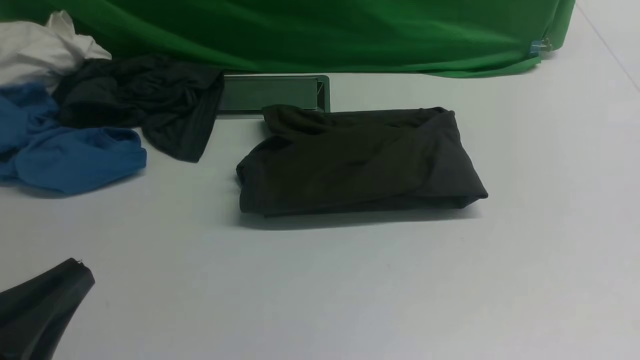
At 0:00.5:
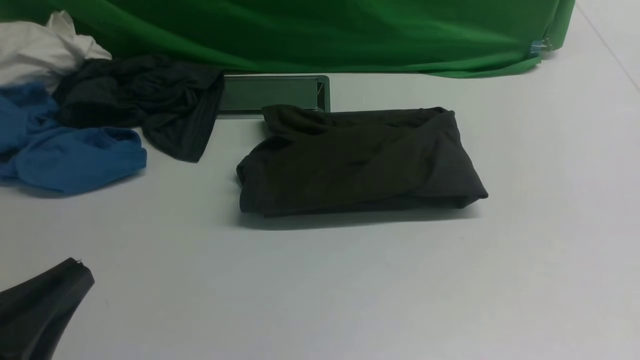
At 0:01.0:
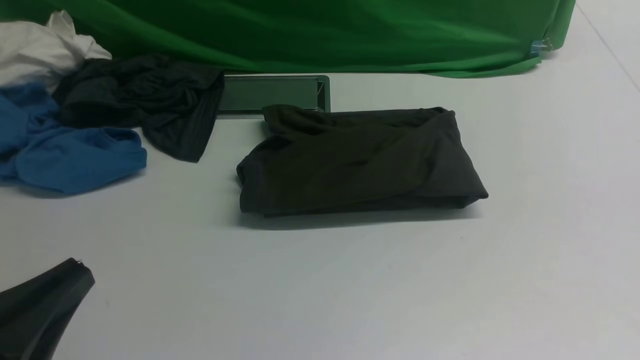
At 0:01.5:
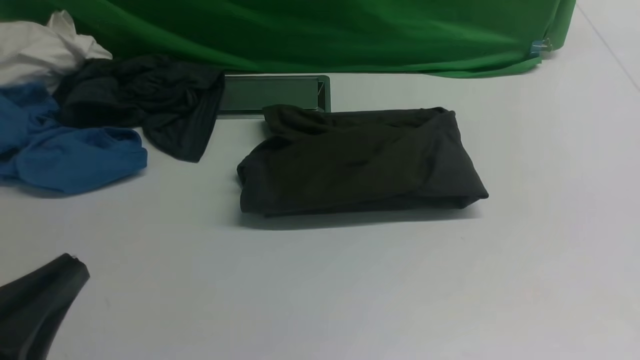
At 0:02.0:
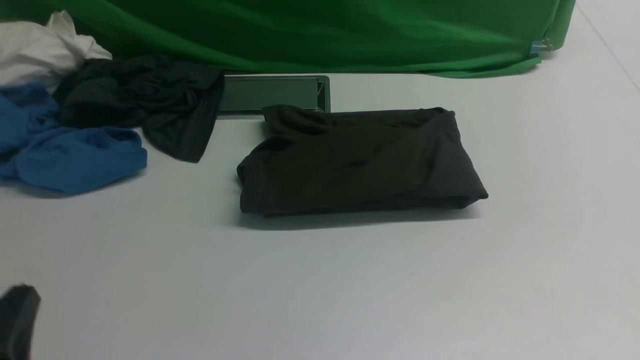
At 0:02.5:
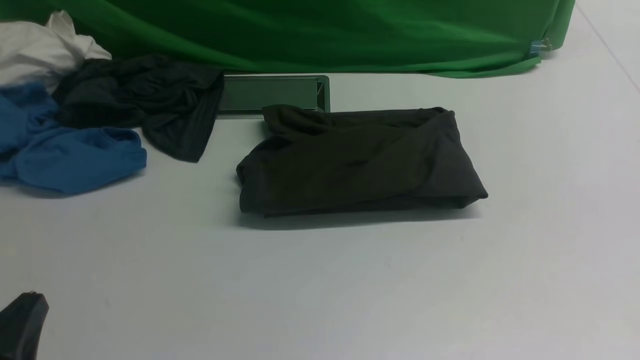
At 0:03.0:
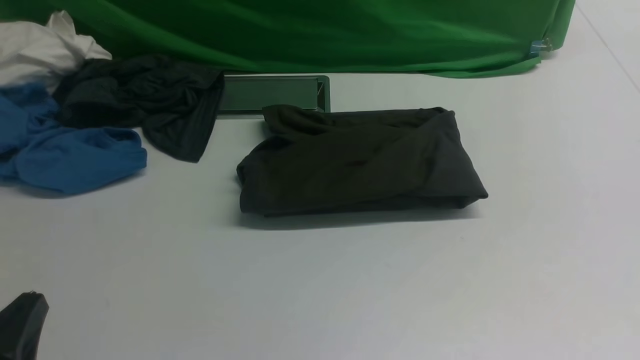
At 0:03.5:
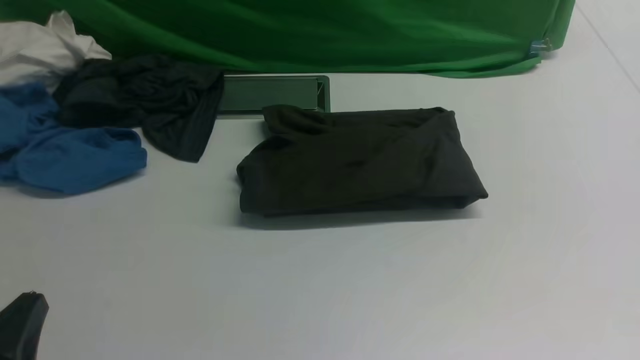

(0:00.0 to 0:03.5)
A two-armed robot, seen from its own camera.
0:00.0 - 0:02.0: The left gripper goes some 5 cm downward.
0:02.0 - 0:03.5: Both grippers stay about where they are.
